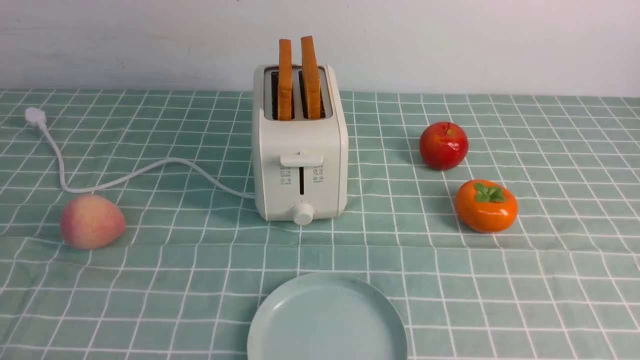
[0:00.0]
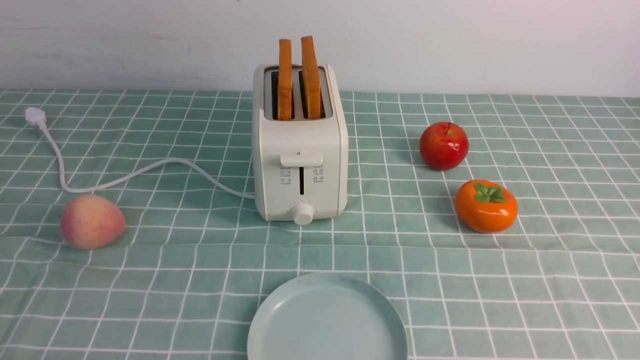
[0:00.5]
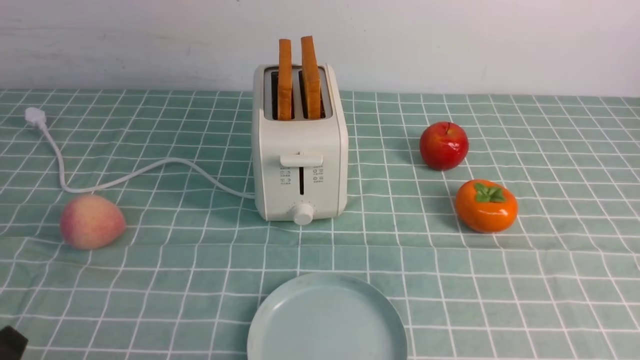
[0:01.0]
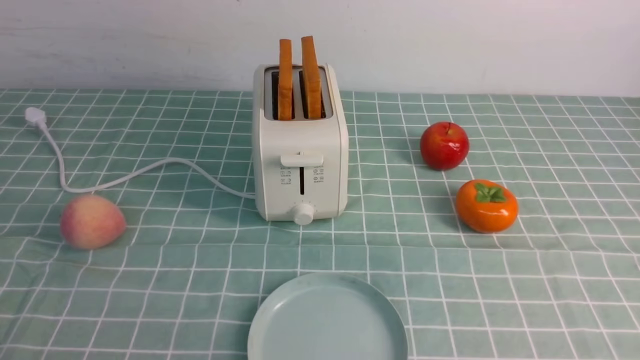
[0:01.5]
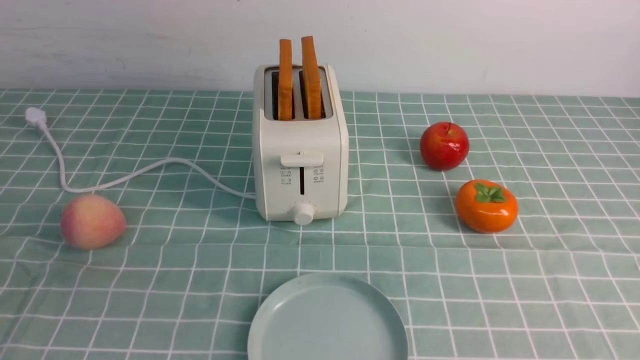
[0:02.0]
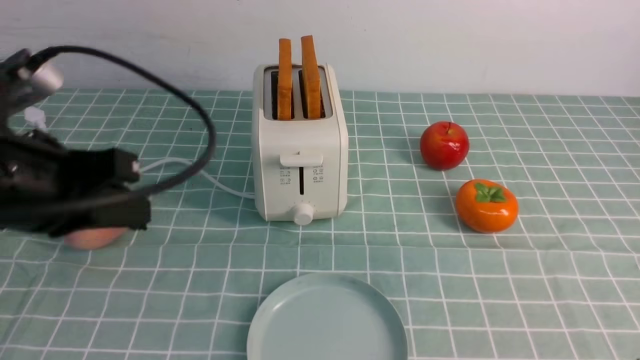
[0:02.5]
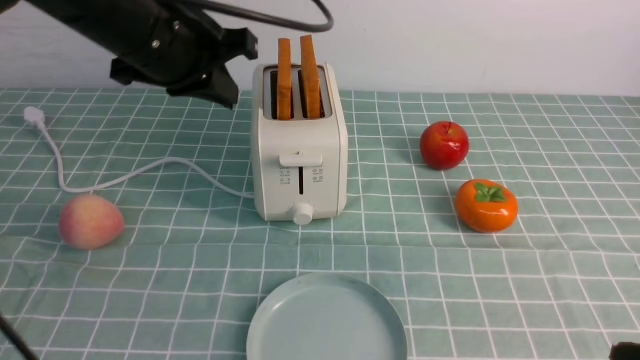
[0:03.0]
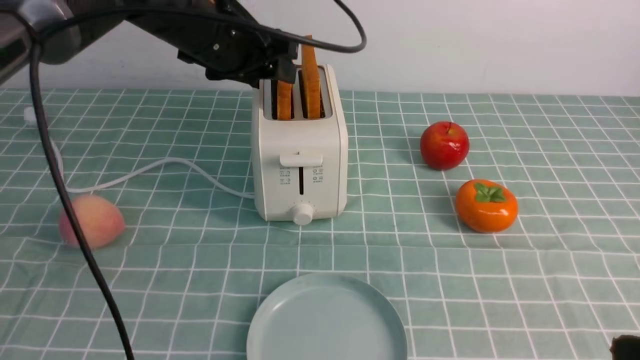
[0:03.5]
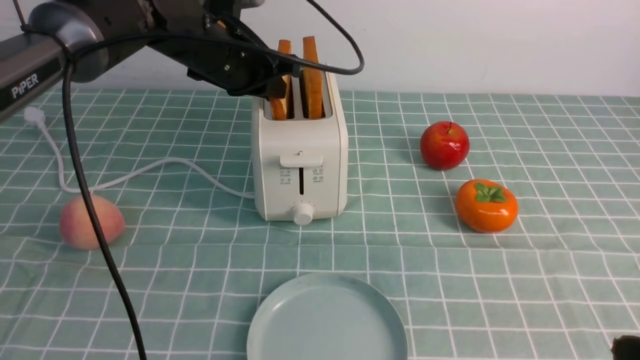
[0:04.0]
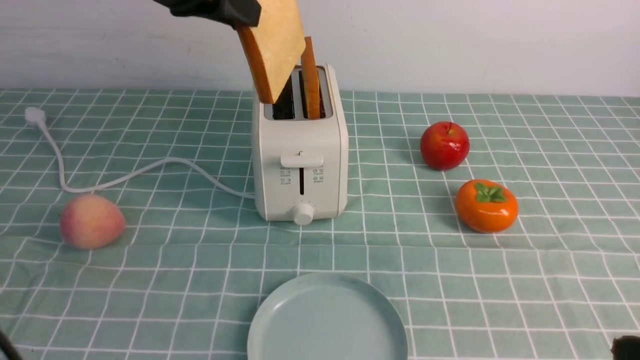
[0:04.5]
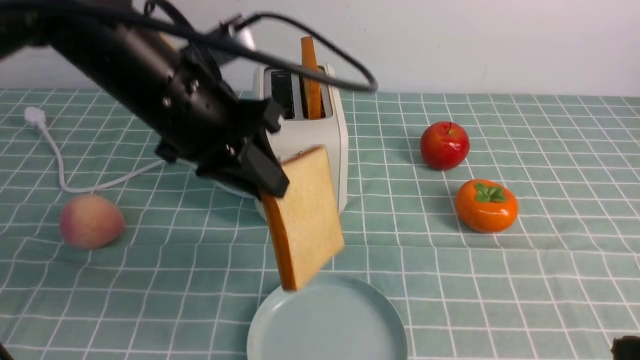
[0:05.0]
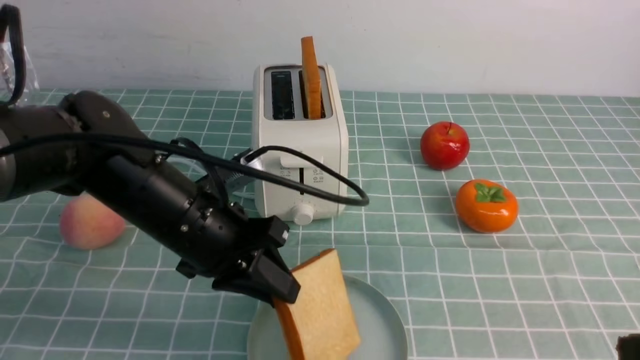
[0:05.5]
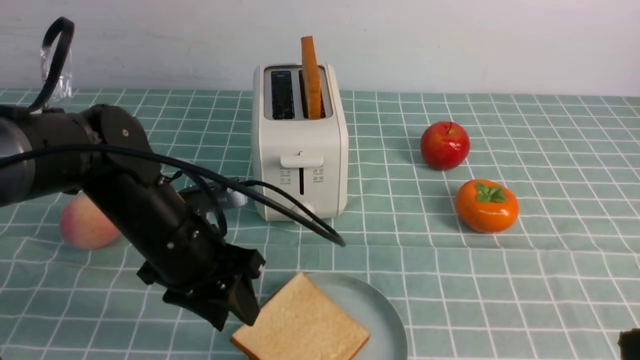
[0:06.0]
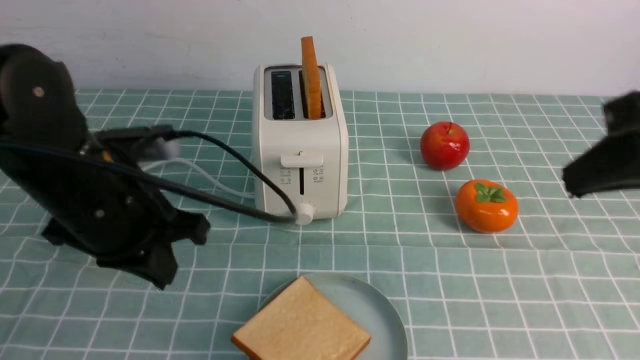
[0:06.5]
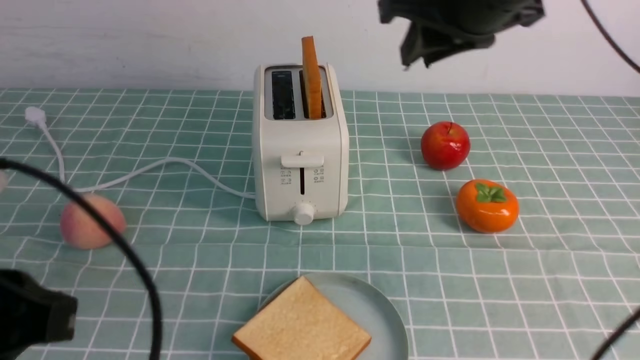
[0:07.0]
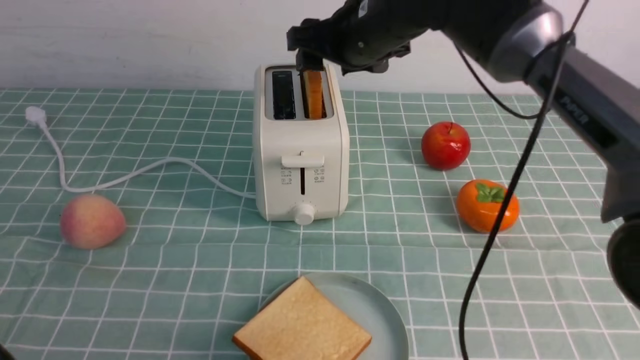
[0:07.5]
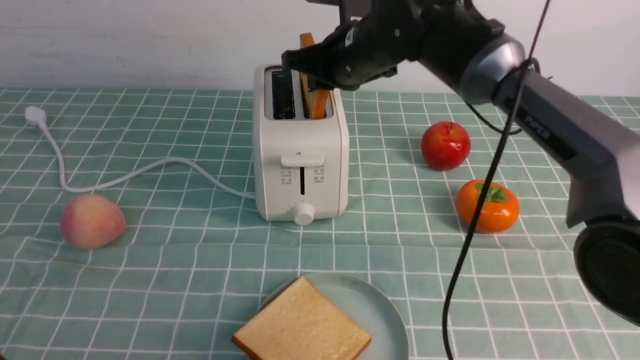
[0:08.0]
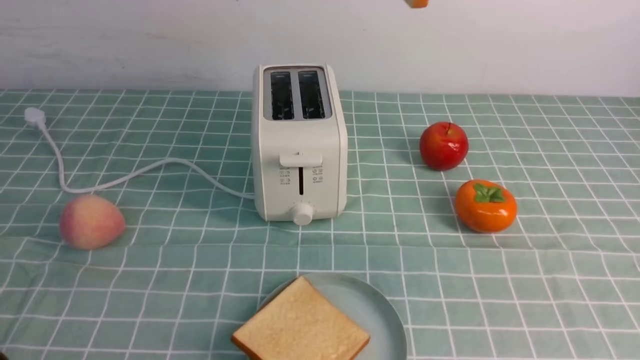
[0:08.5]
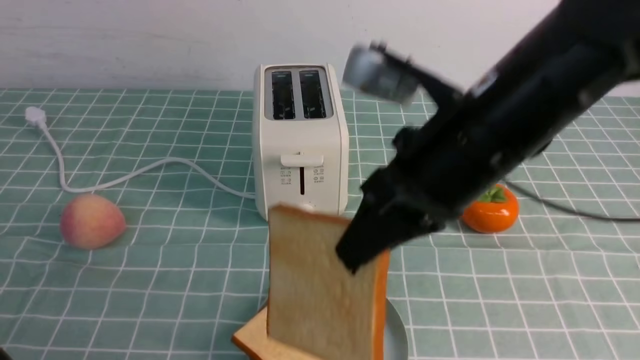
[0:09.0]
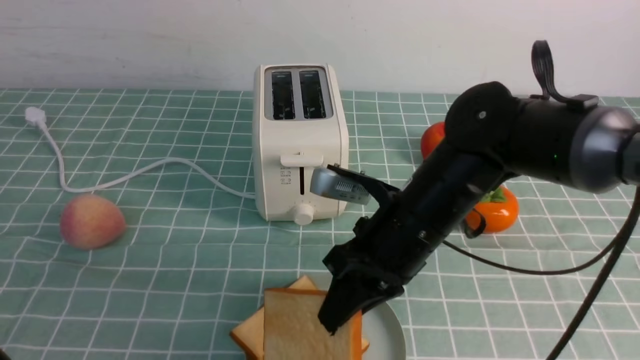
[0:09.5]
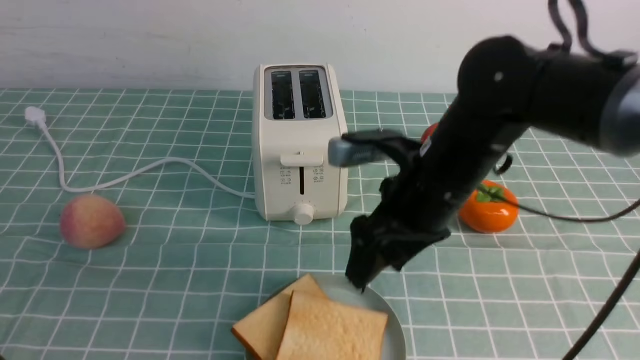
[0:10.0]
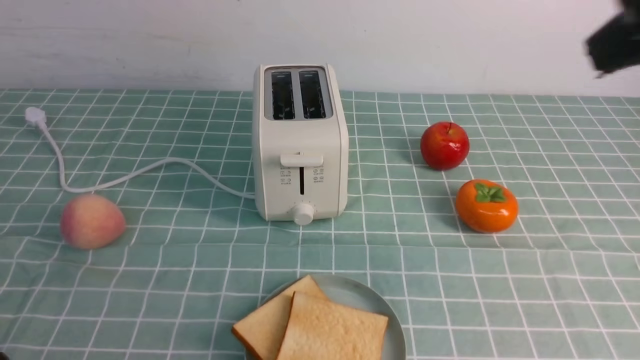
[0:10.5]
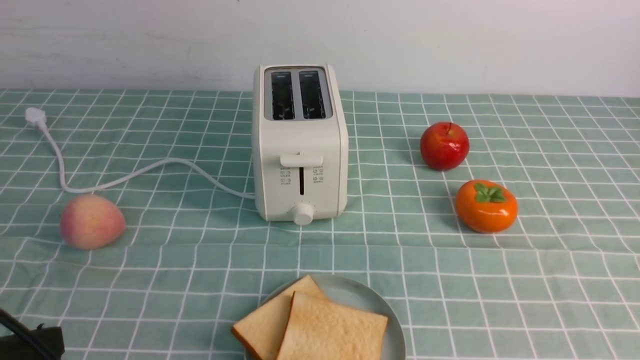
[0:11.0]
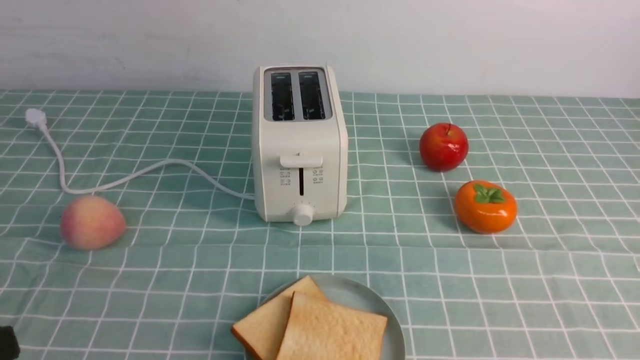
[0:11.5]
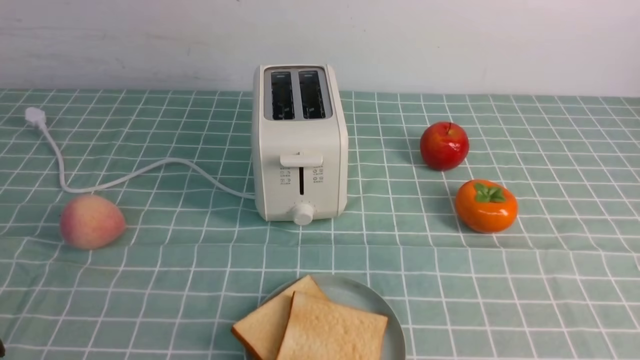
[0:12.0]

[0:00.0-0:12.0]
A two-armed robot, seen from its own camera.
Task of the whole recording: take toasted bread from bread machine on blue coffee table place on plate.
Step, 0:00.0 to 0:04.0: use the left arm to take out a slice of bread.
Step, 0:04.5 to 0:06.0: use the left arm to put a slice of bread into the empty plate.
Step, 0:06.5 to 0:08.0: use the right arm to take out a slice of bread.
Step, 0:09.0 to 0:10.0: use the right arm to put a slice of bread into the plate.
0:02.0 to 0:04.0: The left gripper is displaced forward by some 40 cm, and opens its fingers; the right gripper is displaced upward by some 10 cm, and closes up.
0:04.0 to 0:06.0: The left gripper goes some 20 cm backward and downward, and opens its fingers.
0:06.0 to 0:08.0: The right gripper shifts some 40 cm forward and to the left, and opens, then closes once more; the left gripper is displaced backward and to the left by roughly 25 cm, and closes its fingers.
0:08.0 to 0:10.0: The right gripper swings up and down, some 30 cm each way, with 2 reversals, and opens its fingers.
0:10.0 to 0:12.0: The right gripper is displaced backward and to the right by approximately 35 cm, and closes its fingers.
